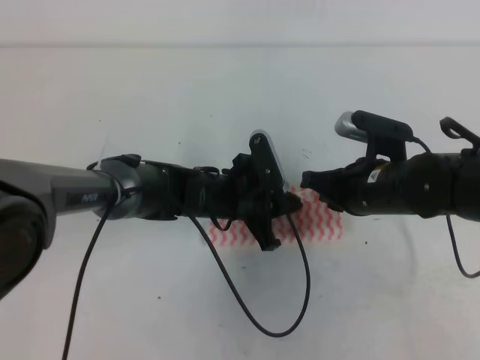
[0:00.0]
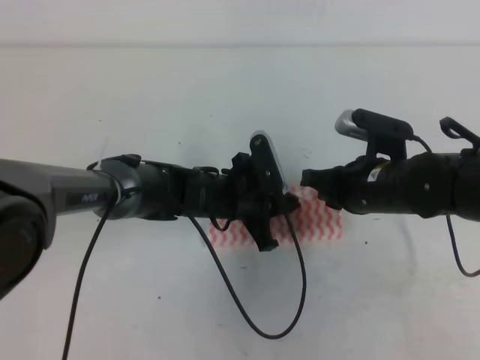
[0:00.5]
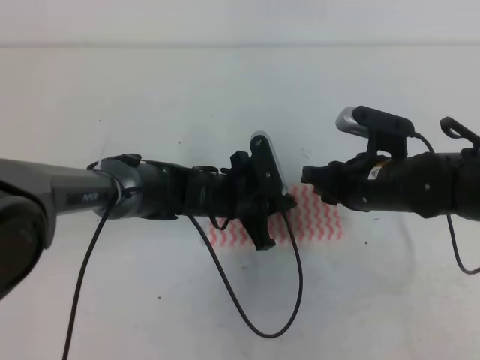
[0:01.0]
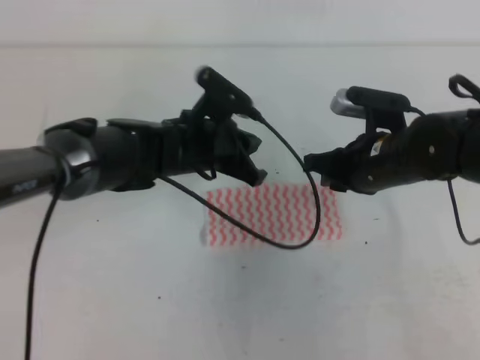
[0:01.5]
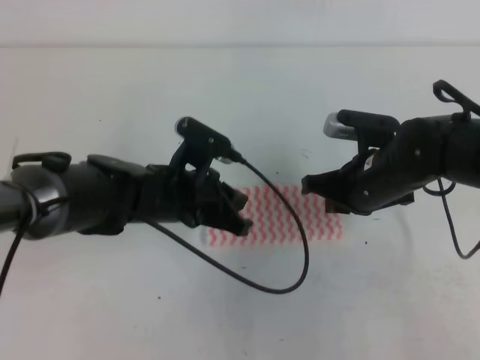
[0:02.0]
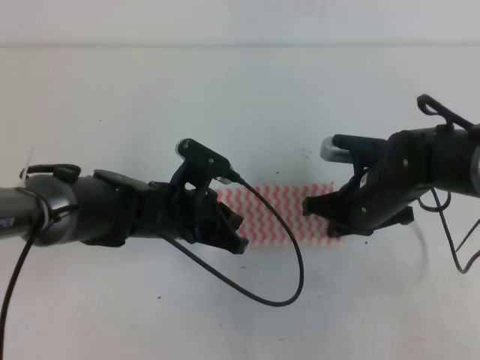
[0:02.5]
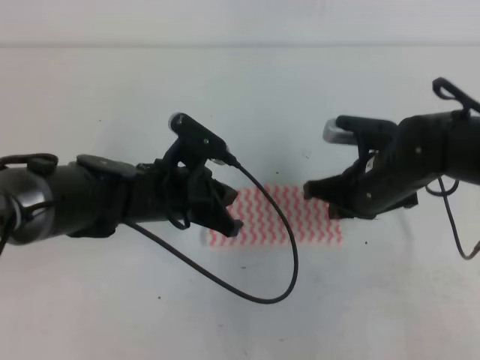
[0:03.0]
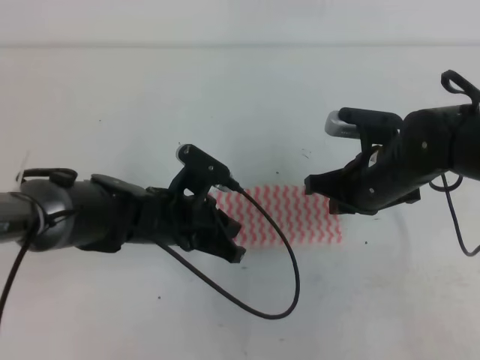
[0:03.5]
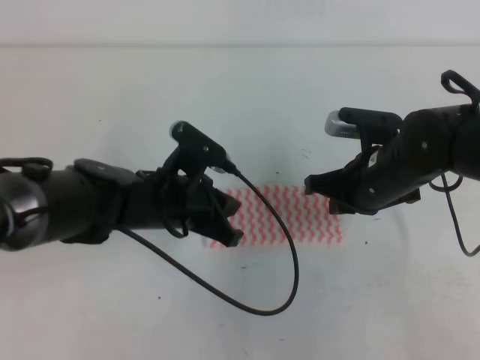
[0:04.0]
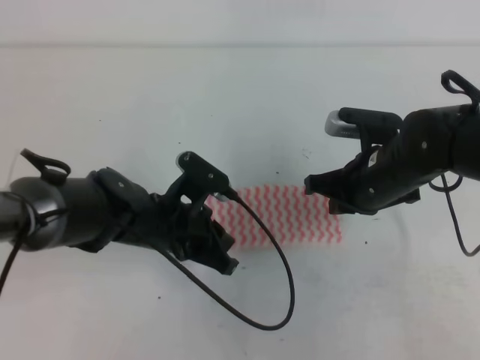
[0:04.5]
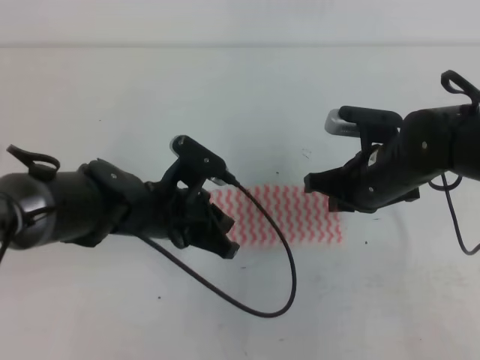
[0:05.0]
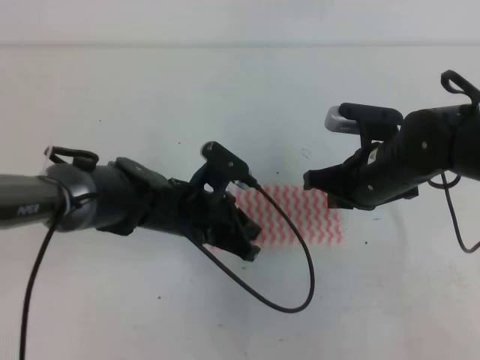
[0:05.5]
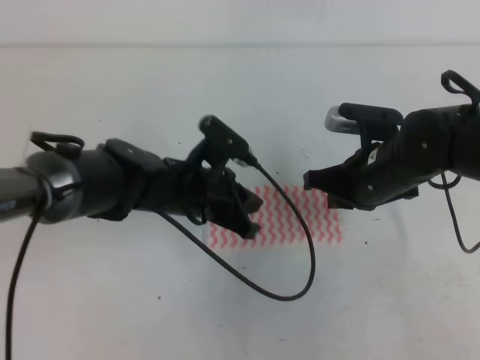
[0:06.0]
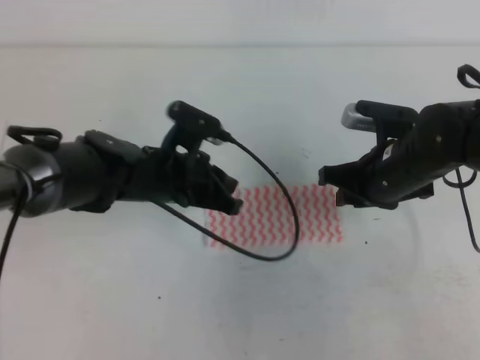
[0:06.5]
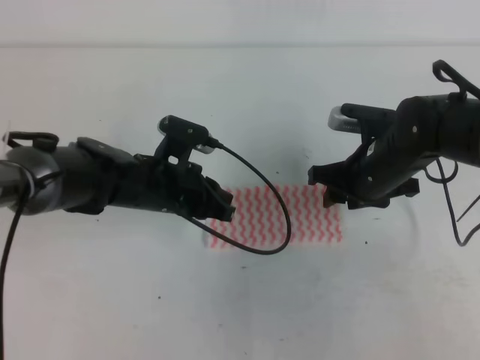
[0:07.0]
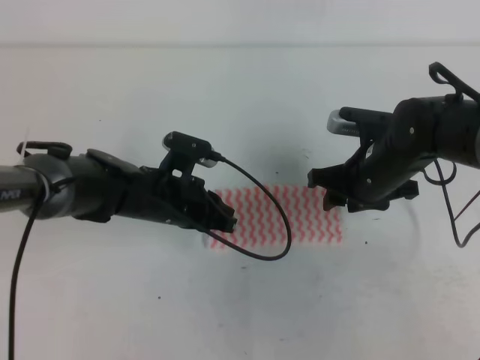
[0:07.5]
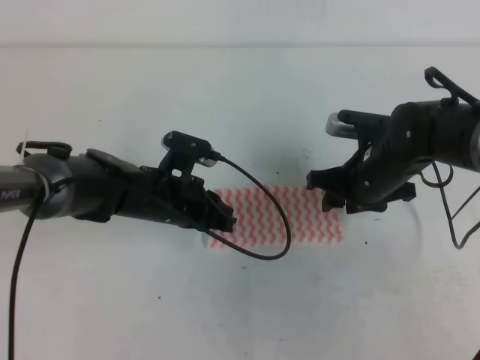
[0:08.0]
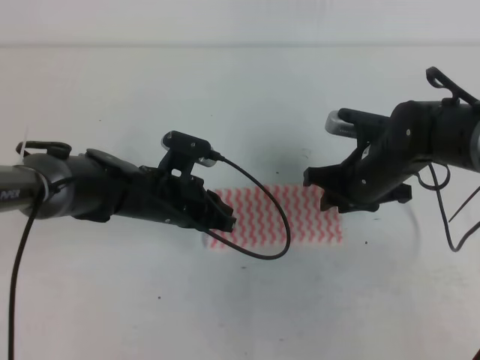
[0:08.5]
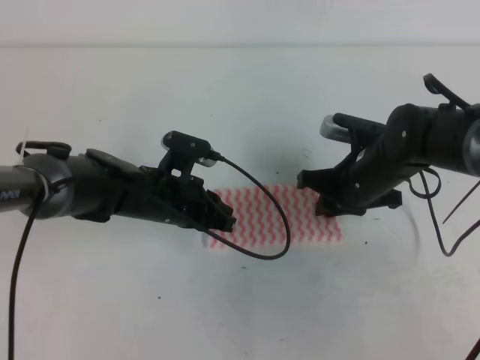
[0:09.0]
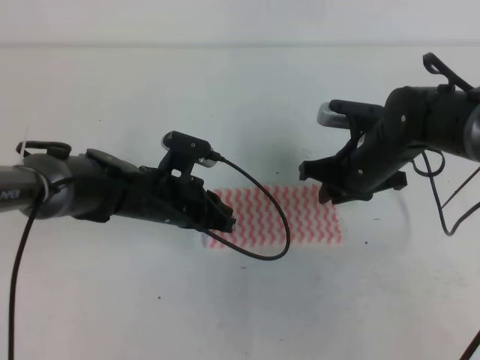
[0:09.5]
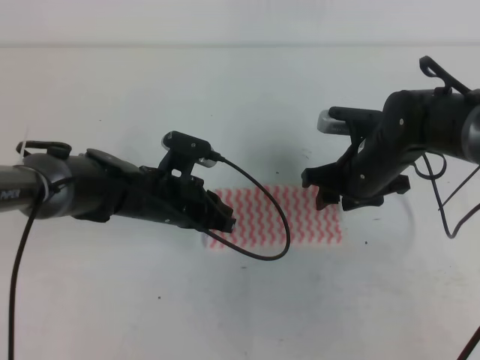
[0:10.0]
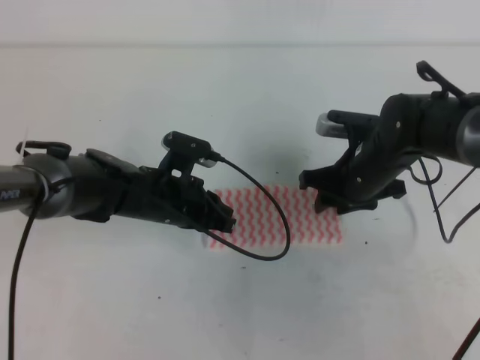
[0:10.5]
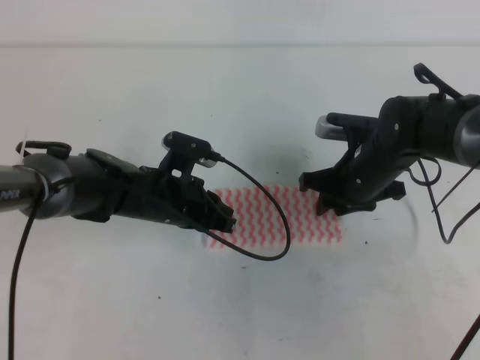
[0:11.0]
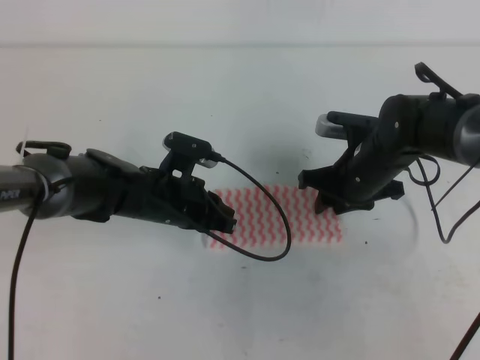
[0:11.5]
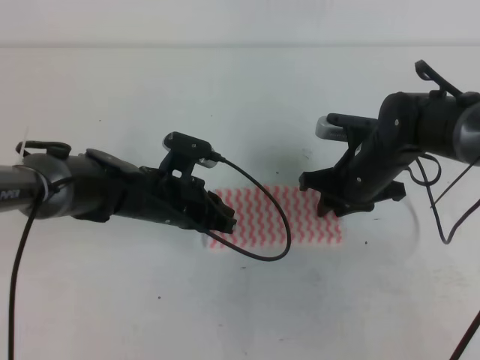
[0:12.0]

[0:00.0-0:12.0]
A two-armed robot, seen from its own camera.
Step, 0:00.0 to 0:02.0: Fold the towel from right to left with the right gripper.
Step, 0:02.5 to 0:06.5: Tidy up the towels.
0:00.0 to 0:02.0: The left gripper goes roughly 10 cm upward and to the left, while the right gripper opens, then closes once more.
0:02.0 to 0:06.0: The grippers stay close to where they were, moving slightly.
0:06.0 to 0:08.0: The right gripper opens its fingers.
0:08.0 to 0:10.0: The right gripper closes and opens again.
0:10.0 to 0:12.0: The right gripper closes its fingers.

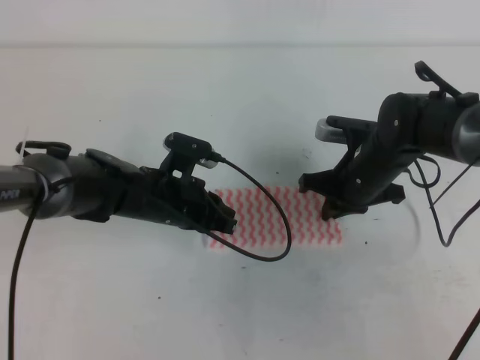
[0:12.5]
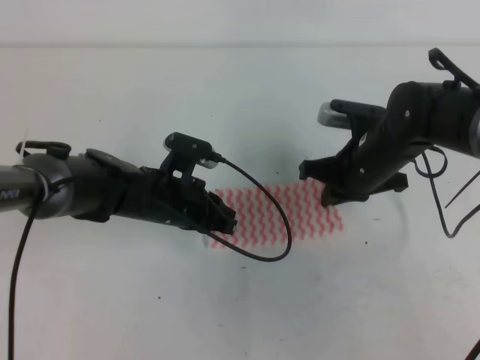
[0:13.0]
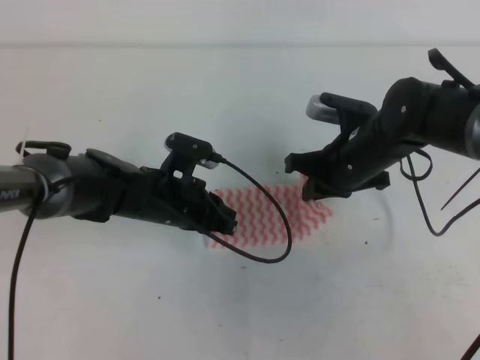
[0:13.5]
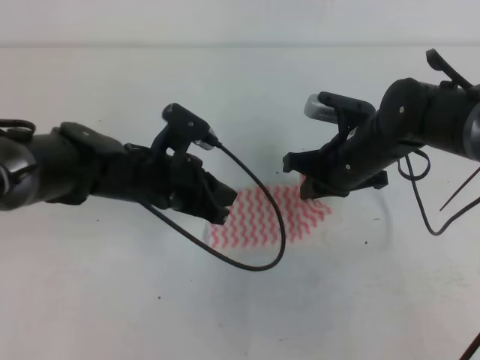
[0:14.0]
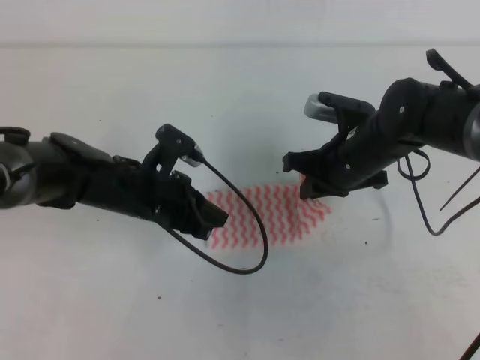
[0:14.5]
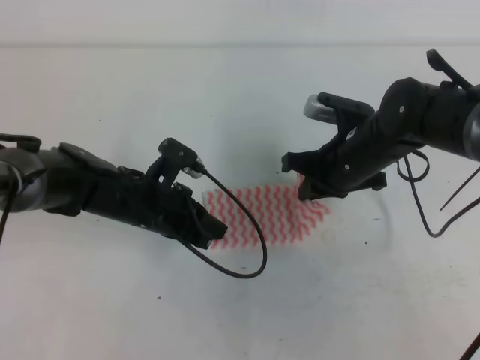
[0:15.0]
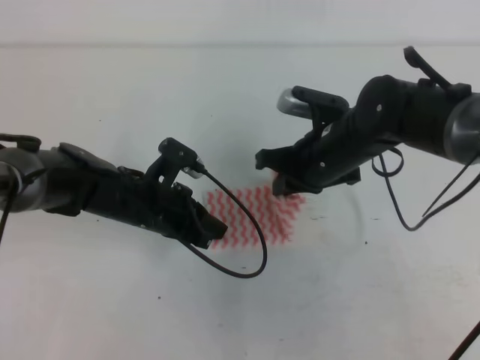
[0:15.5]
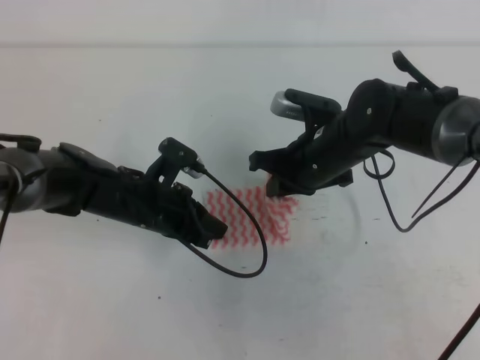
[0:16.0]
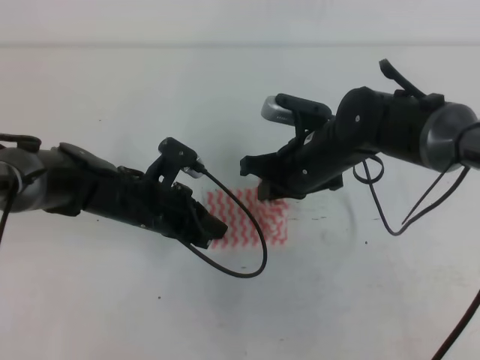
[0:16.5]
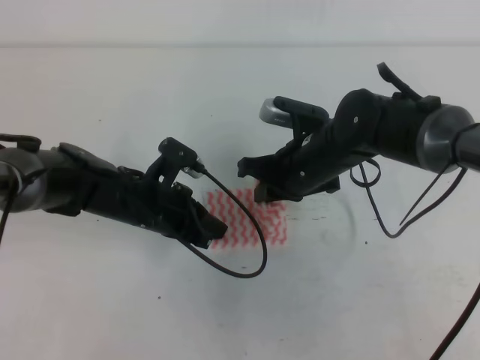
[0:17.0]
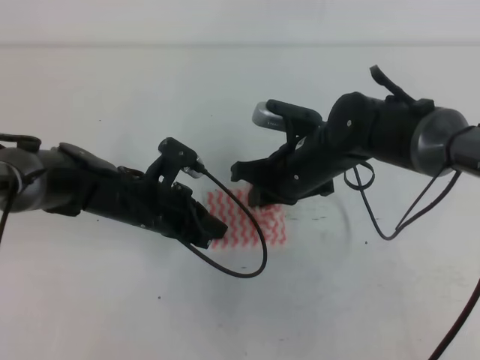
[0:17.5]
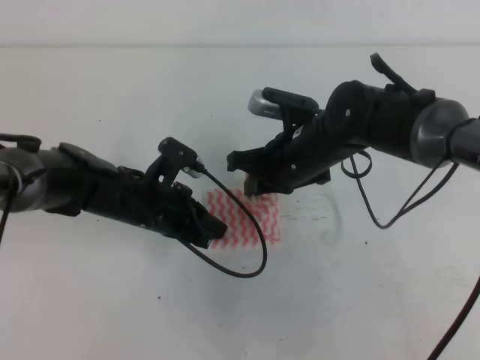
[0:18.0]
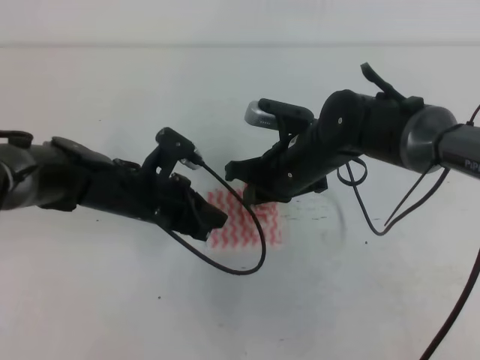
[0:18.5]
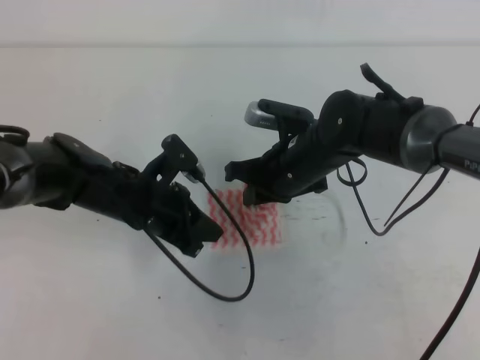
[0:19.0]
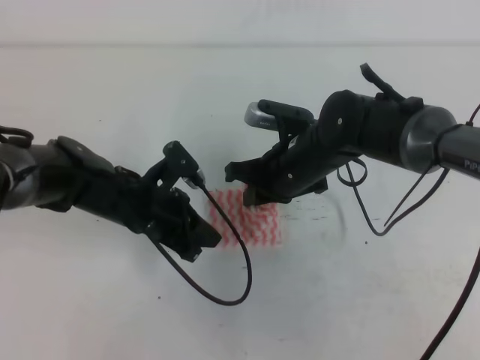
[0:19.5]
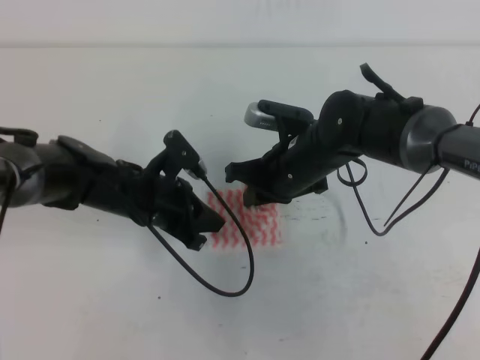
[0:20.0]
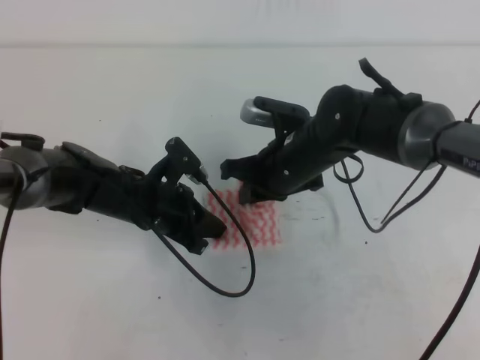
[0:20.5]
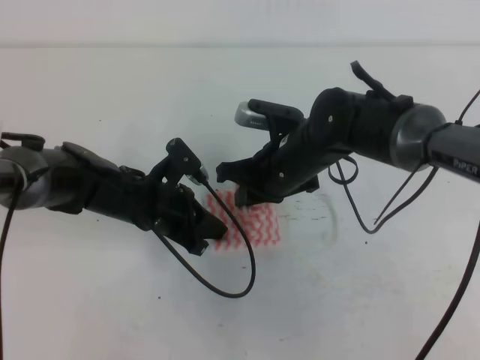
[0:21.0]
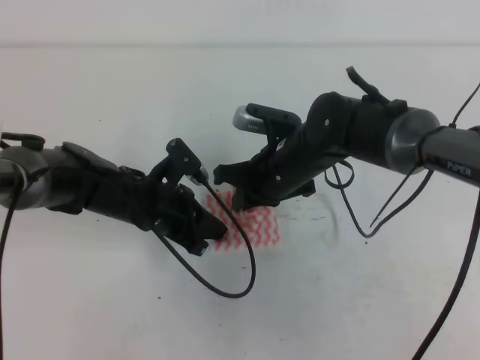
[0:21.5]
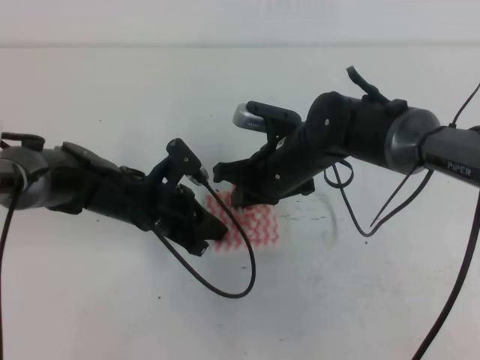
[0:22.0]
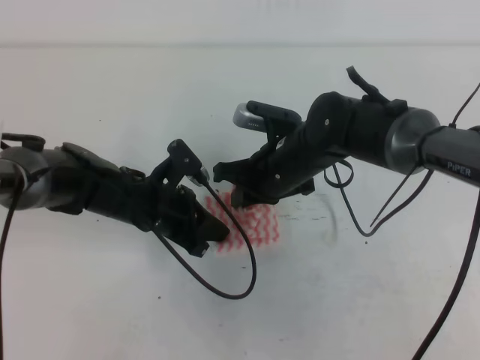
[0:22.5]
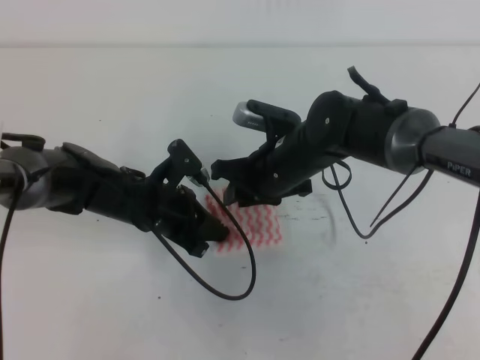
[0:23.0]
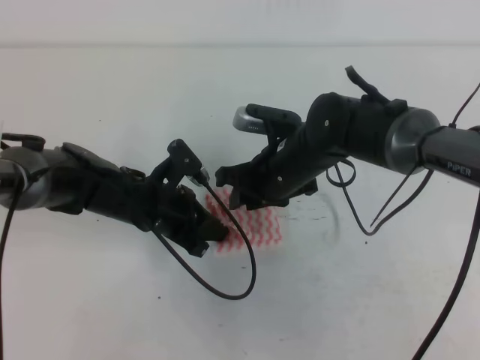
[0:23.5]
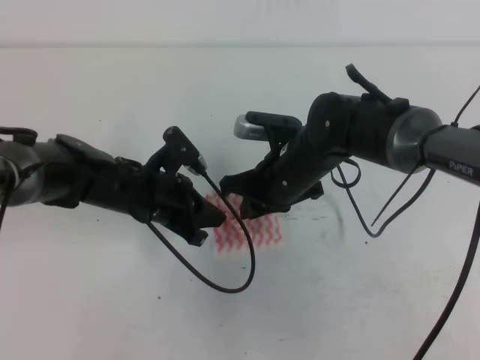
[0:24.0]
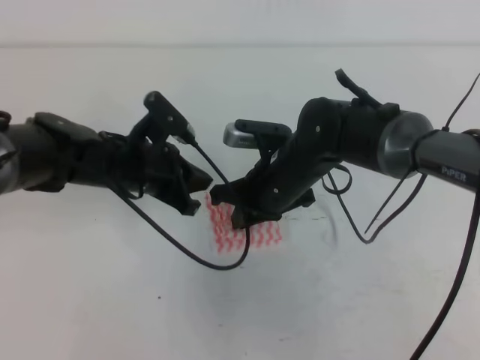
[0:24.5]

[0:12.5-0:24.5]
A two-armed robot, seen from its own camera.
0:12.5 to 0:14.5: The grippers stay close to where they were, moving slightly.
0:14.5 to 0:16.5: The right gripper goes approximately 5 cm to the left.
0:16.5 to 0:20.5: The grippers move only a little.
0:20.5 to 0:22.5: Neither gripper changes place.
0:22.5 to 0:24.5: The right gripper opens and closes again; the left gripper moves upward, roughly 5 cm.

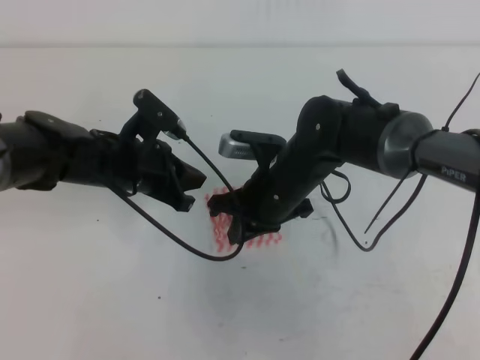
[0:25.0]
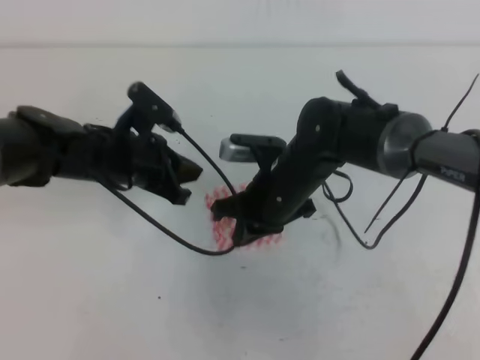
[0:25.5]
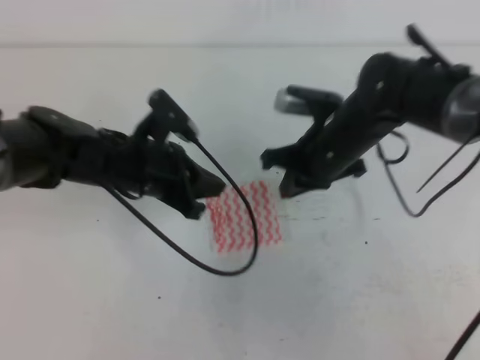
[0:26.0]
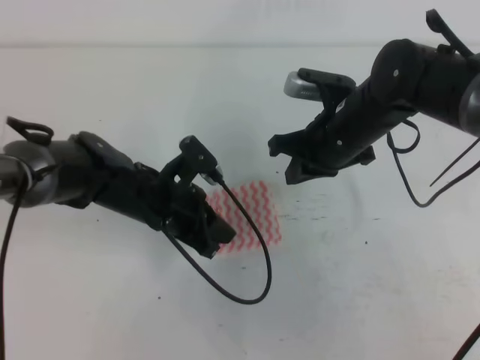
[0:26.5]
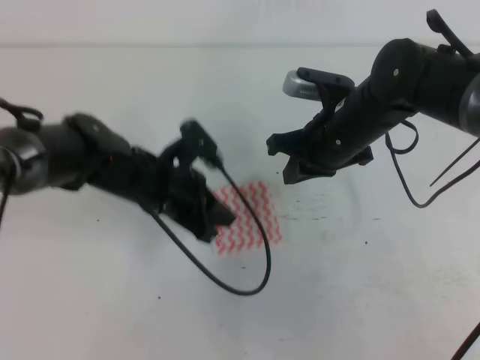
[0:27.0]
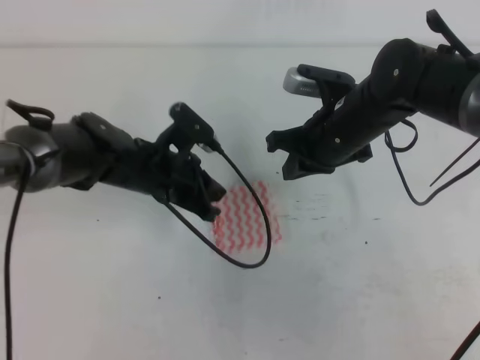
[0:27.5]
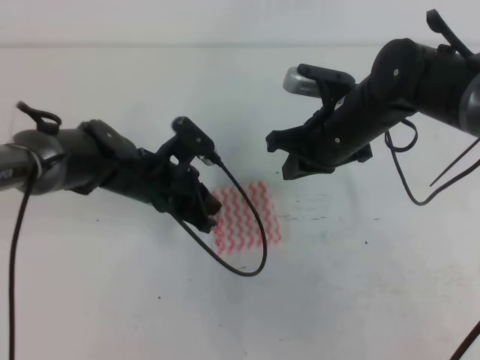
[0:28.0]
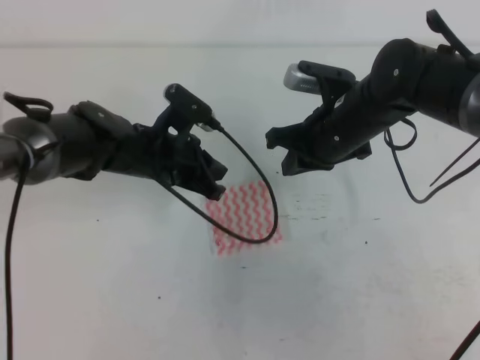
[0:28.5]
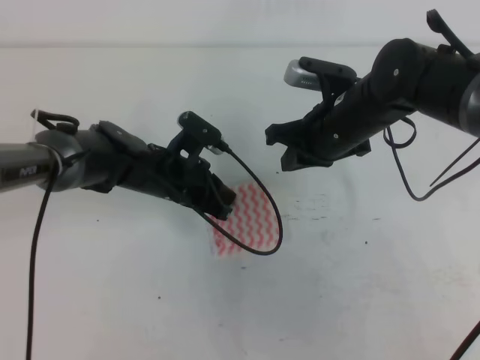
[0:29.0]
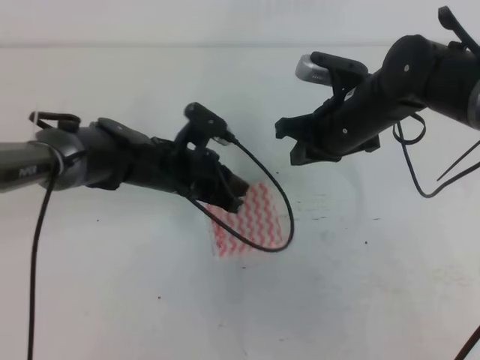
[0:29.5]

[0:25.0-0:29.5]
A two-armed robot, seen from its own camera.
0:25.0 to 0:27.0: The right gripper moves to the right, about 5 cm.
0:27.0 to 0:29.5: The left gripper ends up approximately 5 cm from where it was.
